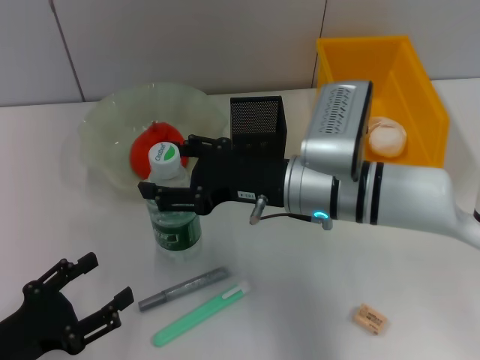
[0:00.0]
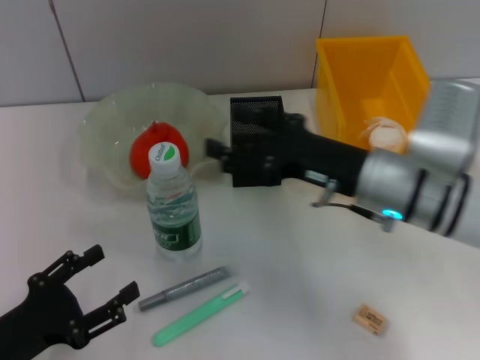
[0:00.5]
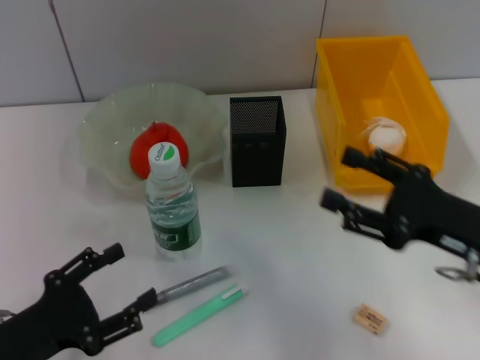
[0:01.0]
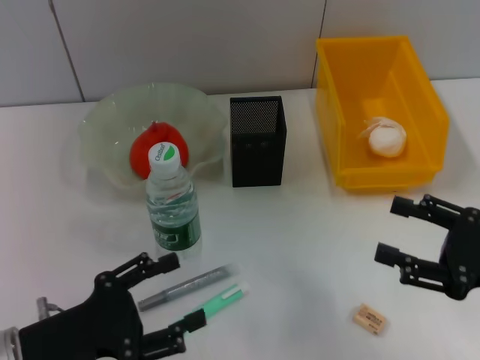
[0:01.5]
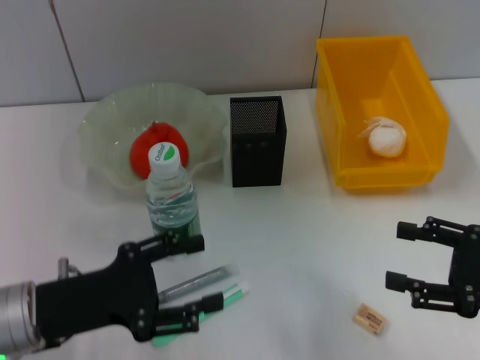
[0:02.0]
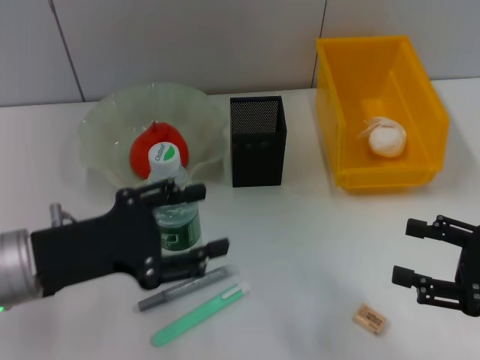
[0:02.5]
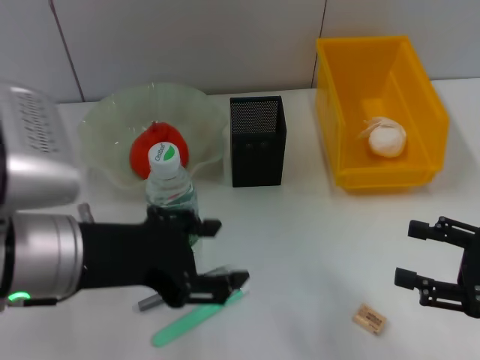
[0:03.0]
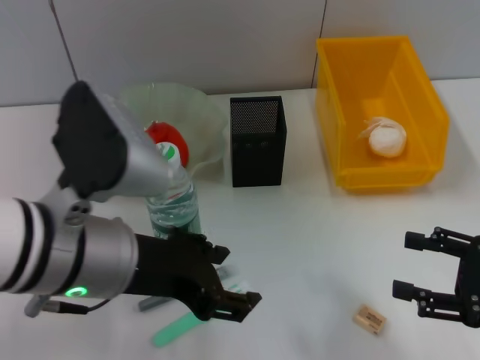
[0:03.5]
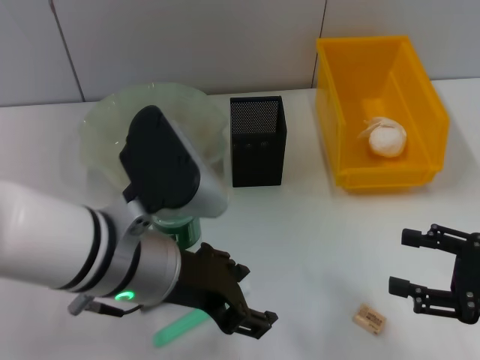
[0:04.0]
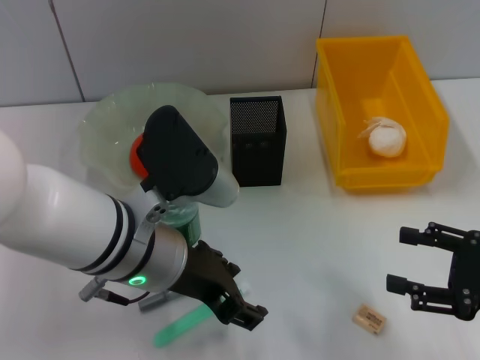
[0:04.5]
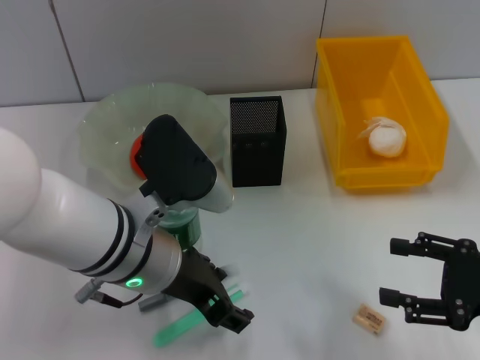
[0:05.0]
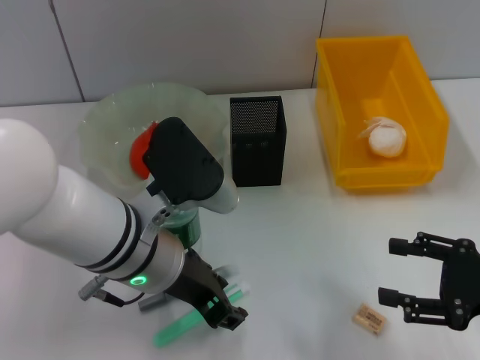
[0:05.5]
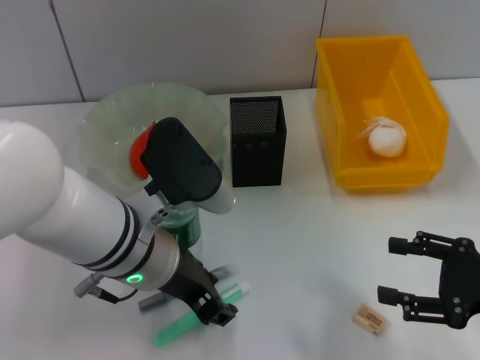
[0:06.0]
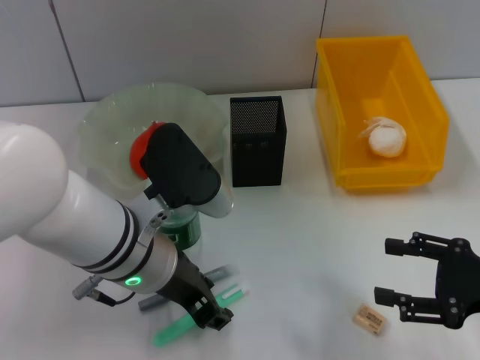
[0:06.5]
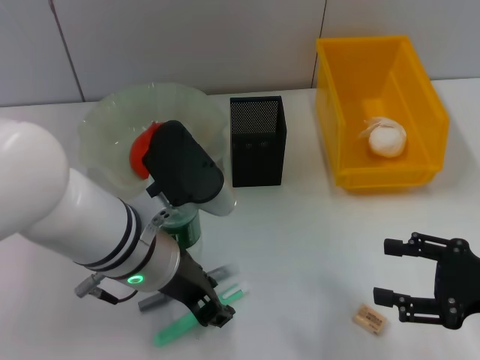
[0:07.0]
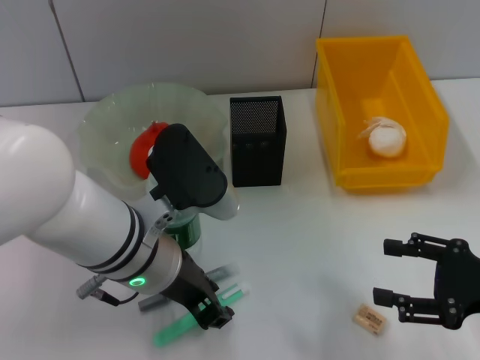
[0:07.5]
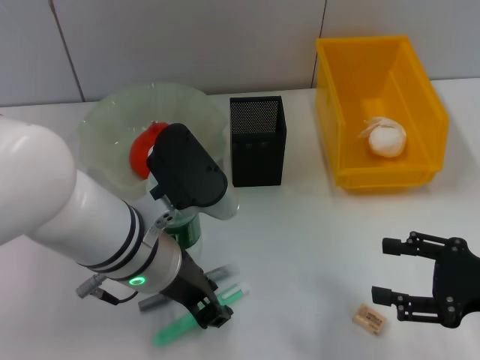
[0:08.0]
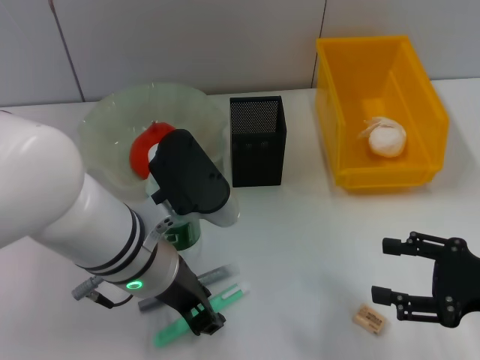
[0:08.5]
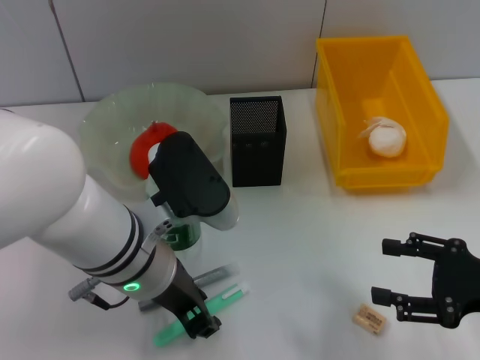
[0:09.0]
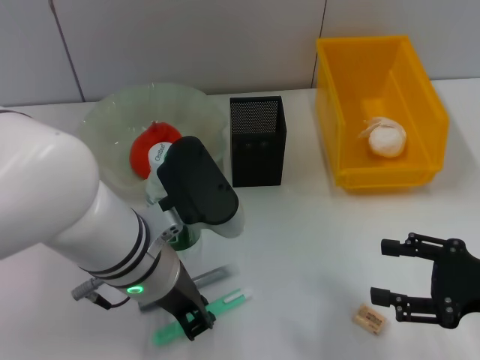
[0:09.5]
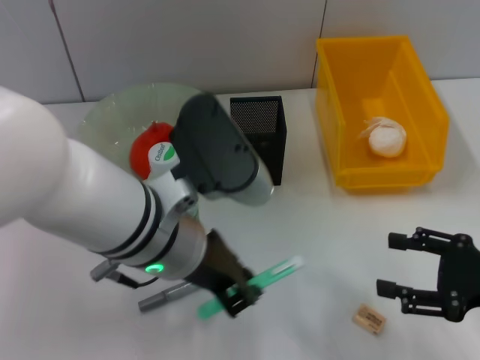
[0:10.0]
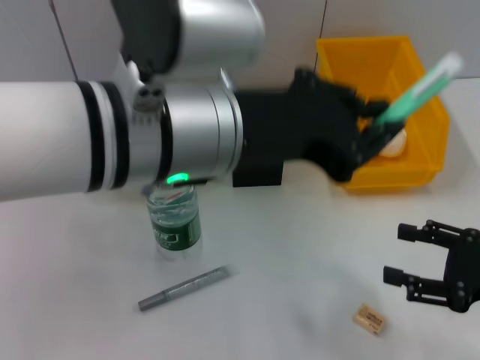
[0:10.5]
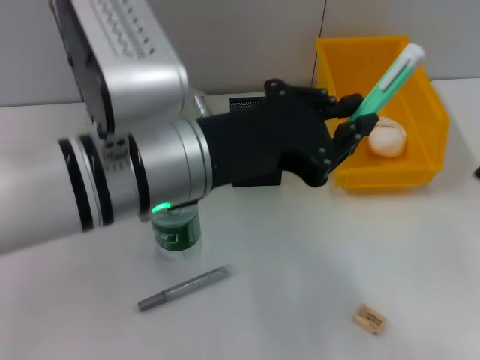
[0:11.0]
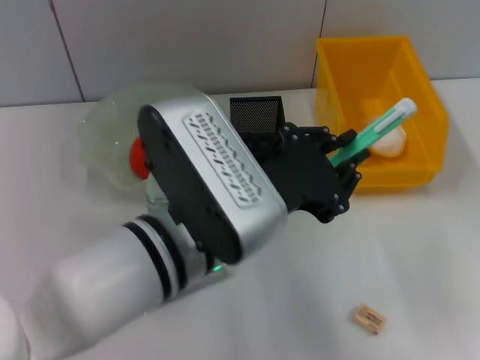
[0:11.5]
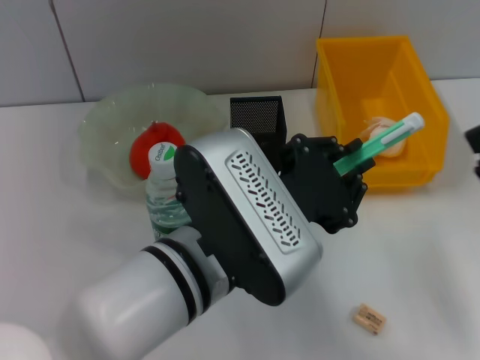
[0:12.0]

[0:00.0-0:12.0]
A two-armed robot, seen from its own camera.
Step, 0:01.0 to 0:09.0: Grab the blue utility knife with the left hand.
0:00.0 to 0:02.0: The right gripper is displaced to the right and backward by some 25 cm. Meanwhile the left gripper goes roughly 10 cm to the right, forward and upward.
0:02.0 to 0:04.0: The left gripper moves to the right and upward, roughly 15 cm.
0:04.0 to 0:06.0: The grippers make only small movements.
0:06.0 to 0:08.0: Both grippers stay about where they are.
0:08.0 to 0:10.0: The grippers make only small movements.
0:10.0 to 0:12.0: The left gripper moves approximately 10 cm upward and comes back; the right gripper changes place by about 5 cm.

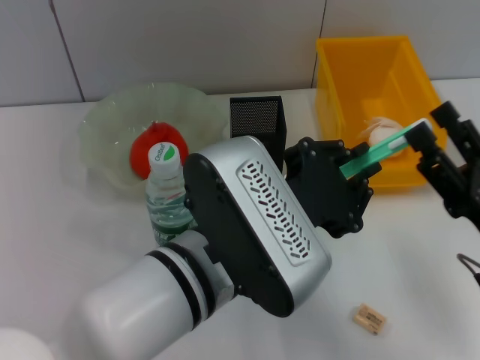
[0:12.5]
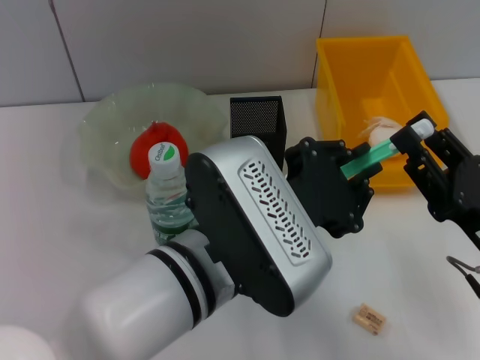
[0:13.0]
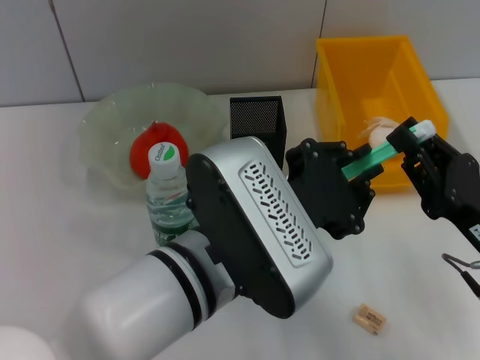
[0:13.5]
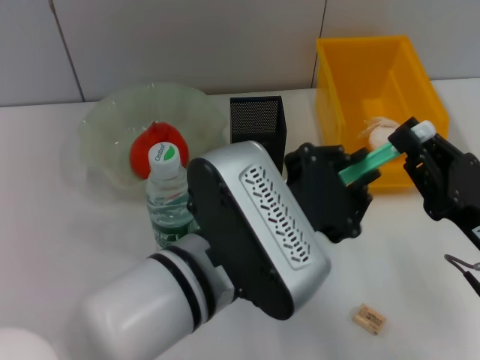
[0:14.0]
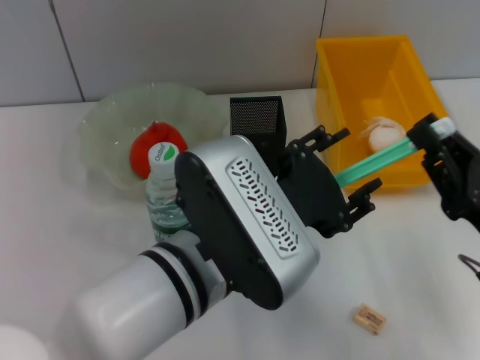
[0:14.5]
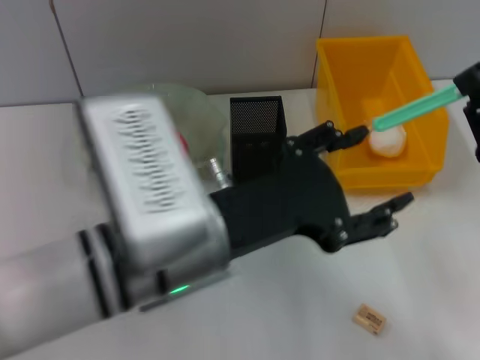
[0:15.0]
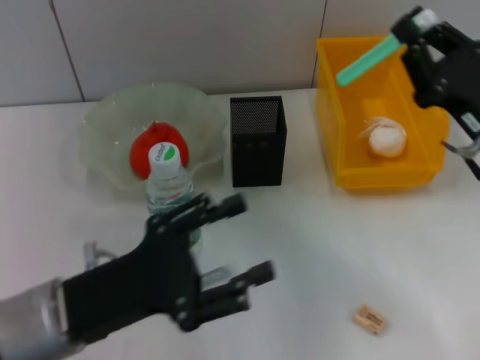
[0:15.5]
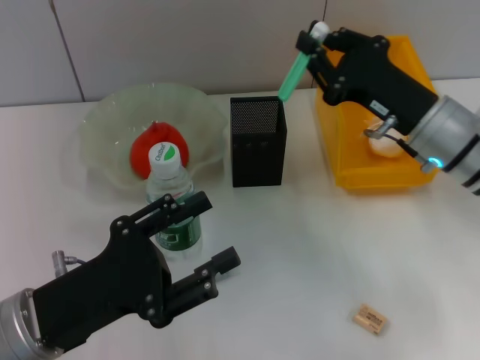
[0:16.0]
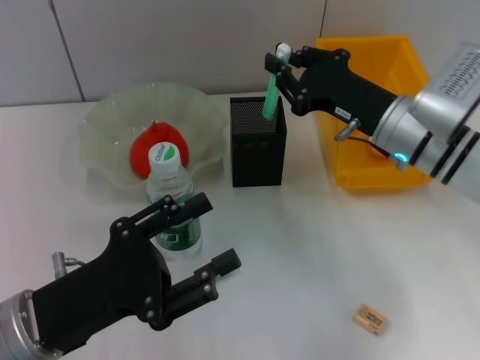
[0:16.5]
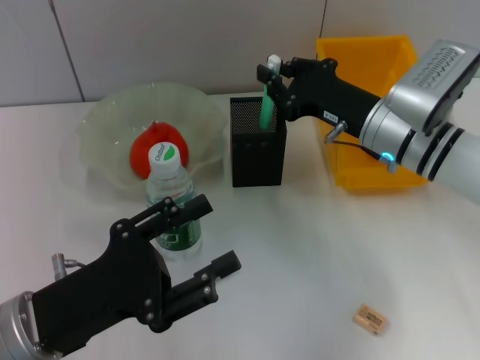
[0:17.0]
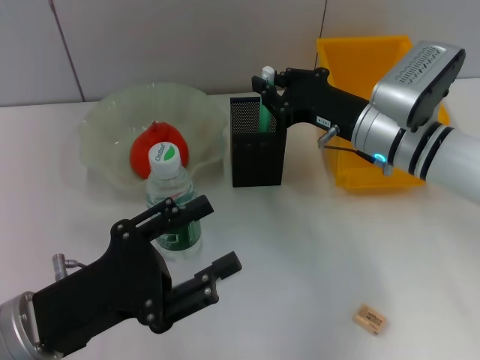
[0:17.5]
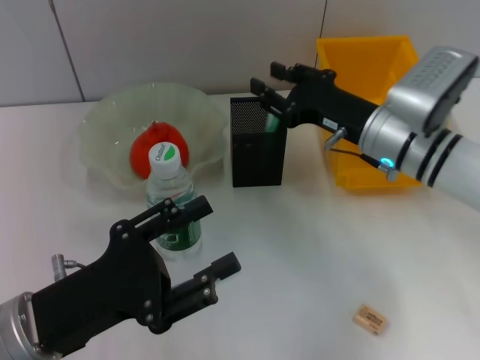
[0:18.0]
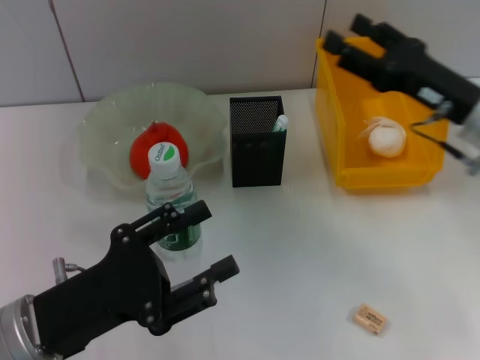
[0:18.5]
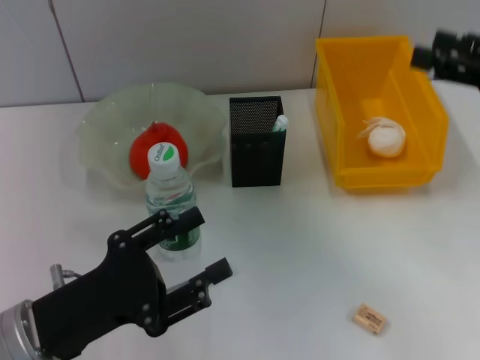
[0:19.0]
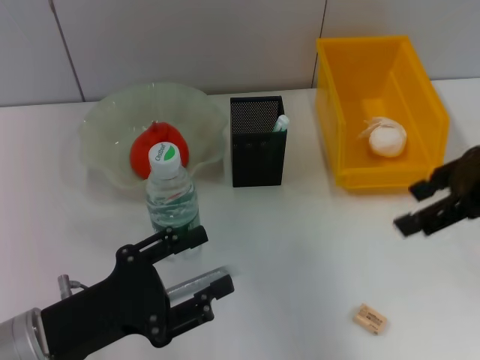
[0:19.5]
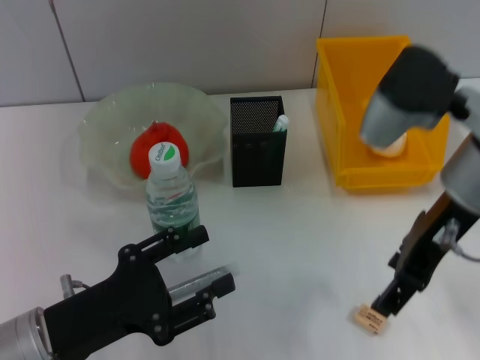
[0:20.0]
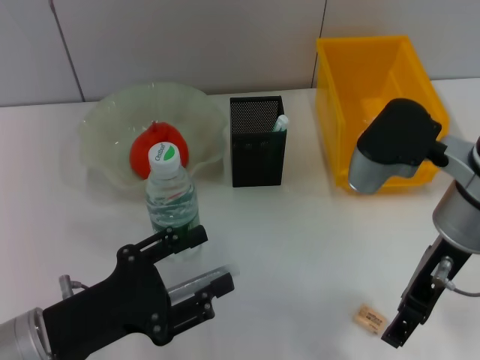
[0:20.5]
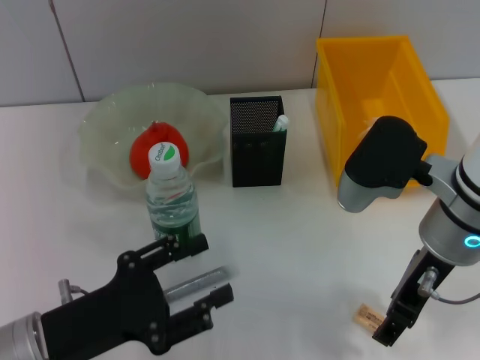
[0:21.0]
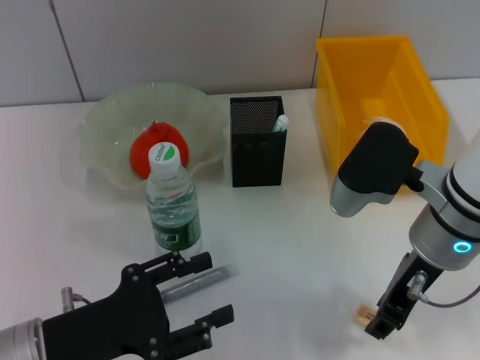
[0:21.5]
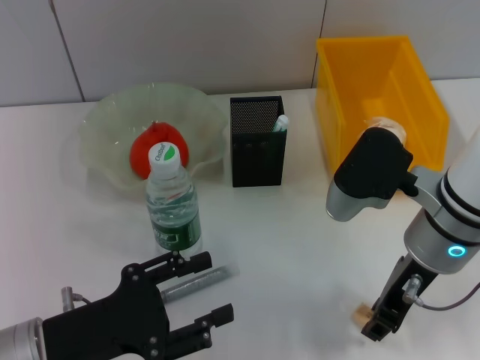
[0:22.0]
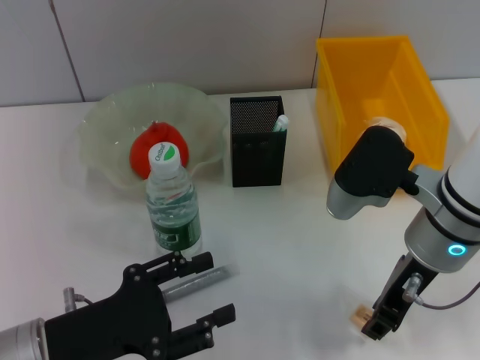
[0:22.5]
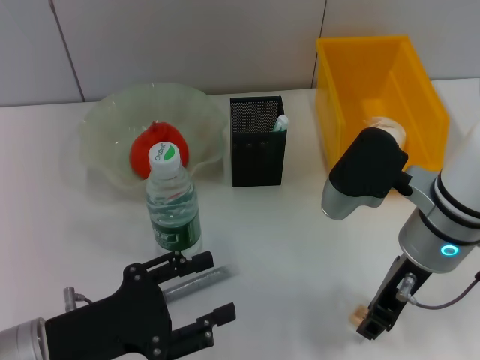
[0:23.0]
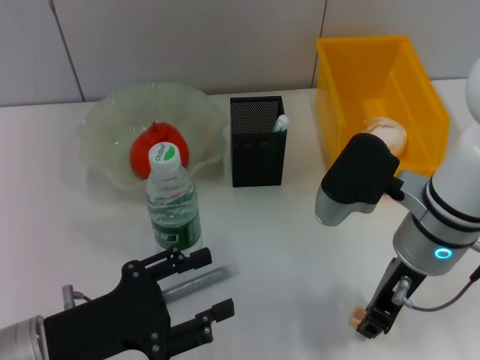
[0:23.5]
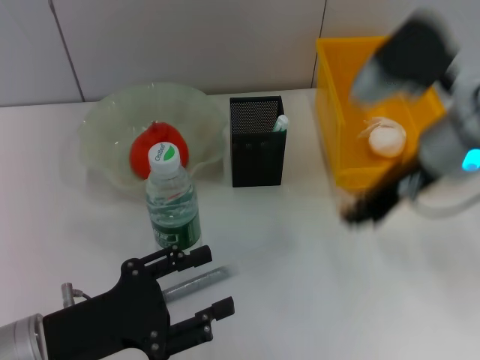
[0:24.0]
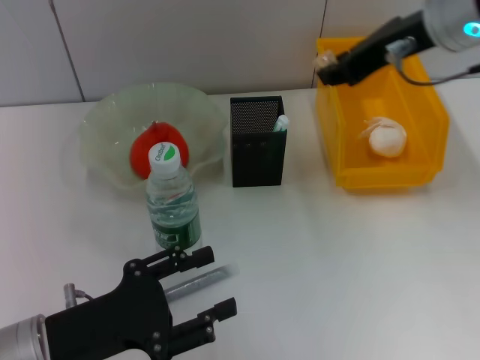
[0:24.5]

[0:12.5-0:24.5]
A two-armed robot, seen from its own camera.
Step, 0:12.5 to 0:14.5: Pass the blue utility knife from the left hand to the right hand.
Step, 0:15.0 to 0:18.0: Place the blue utility knife into the pen holder with the right hand.
Step, 0:18.5 to 0:23.0: Grab the eraser with the right hand.
0:12.5 to 0:14.5: The left gripper opens up. Meanwhile the right gripper closes up.
0:14.5 to 0:16.5: The right gripper goes about 20 cm forward and to the left, while the left gripper moves to the left, some 15 cm.
0:16.5 to 0:18.5: The right gripper is displaced to the right by some 5 cm, and opens its fingers.
0:18.5 to 0:20.5: The right gripper travels to the left by some 10 cm.
0:20.5 to 0:22.5: The right gripper closes up.
0:22.5 to 0:24.5: The right gripper is displaced upward and forward by roughly 15 cm.

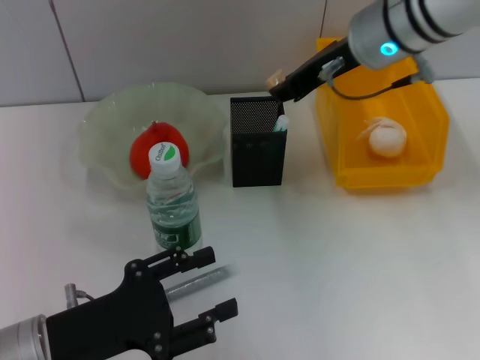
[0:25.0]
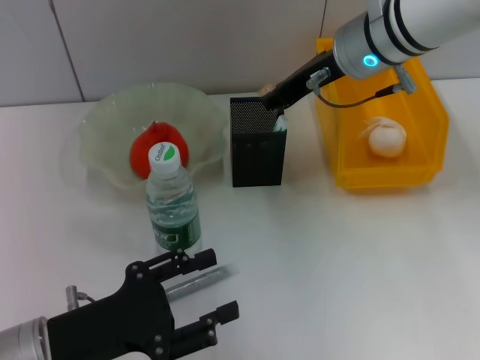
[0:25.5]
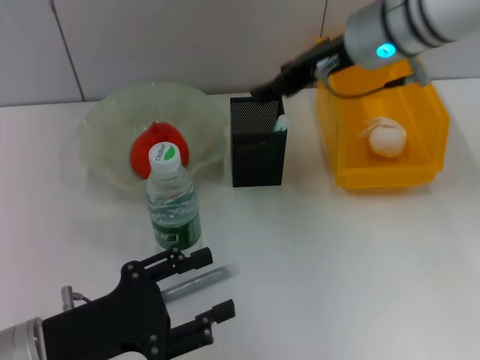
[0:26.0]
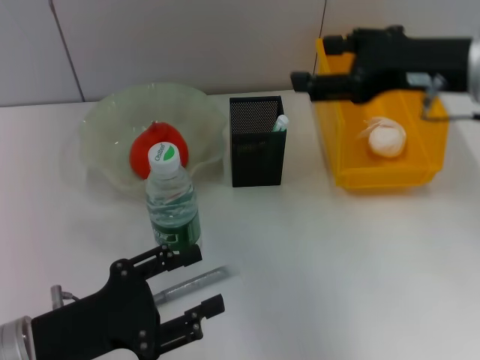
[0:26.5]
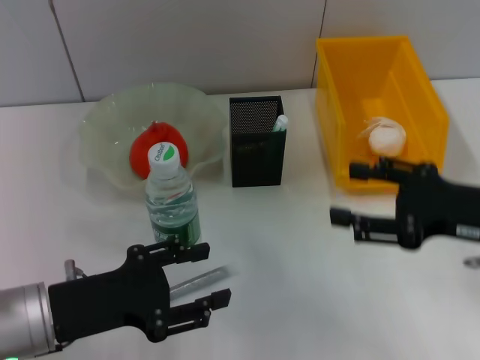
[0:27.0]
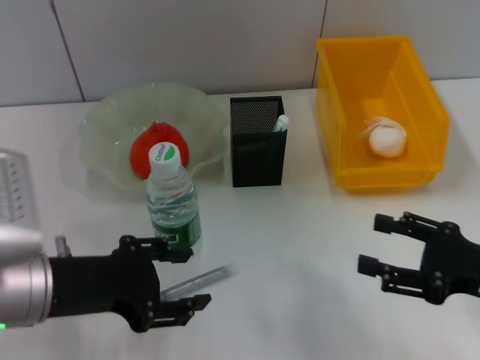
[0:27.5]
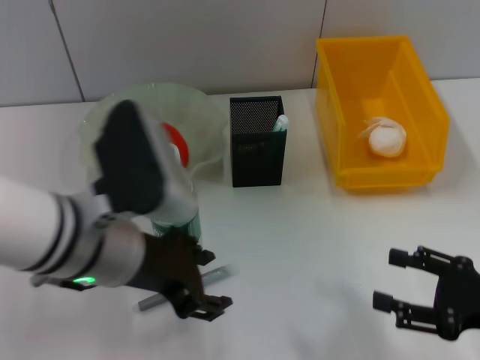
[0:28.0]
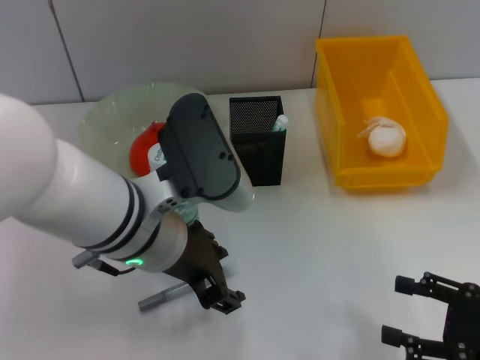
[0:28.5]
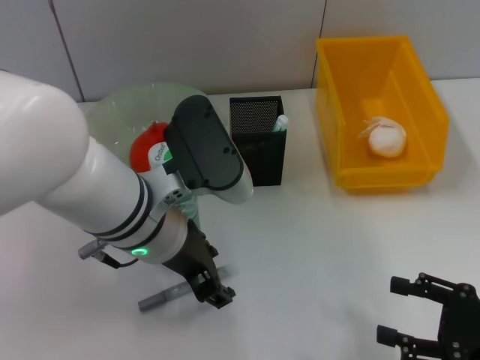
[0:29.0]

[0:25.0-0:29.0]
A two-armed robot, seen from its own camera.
0:25.0 to 0:27.0: The right gripper is displaced backward, to the right and downward by about 25 cm, and opens up.
0:27.0 to 0:29.0: The right gripper goes about 10 cm downward and backward, while the left gripper travels to the right, forward and upward by approximately 15 cm.
